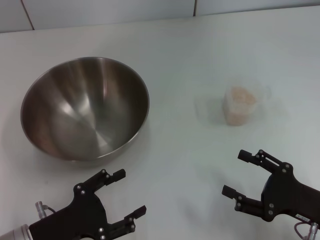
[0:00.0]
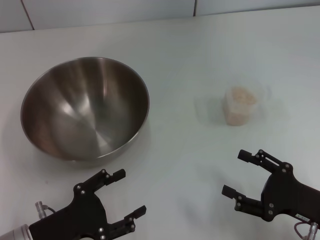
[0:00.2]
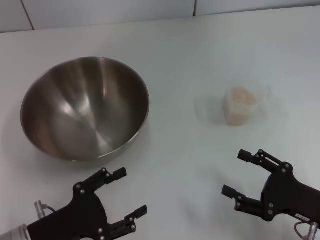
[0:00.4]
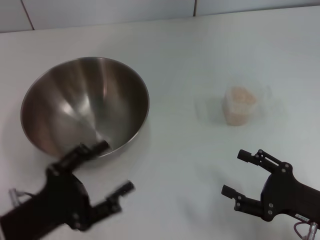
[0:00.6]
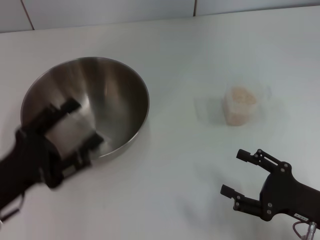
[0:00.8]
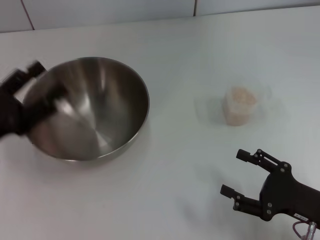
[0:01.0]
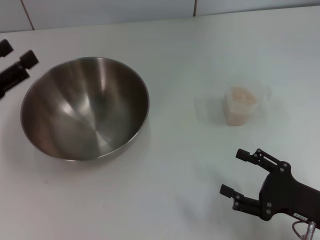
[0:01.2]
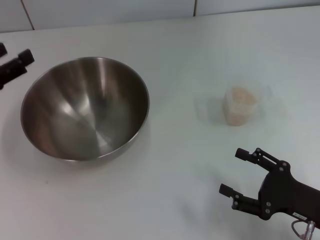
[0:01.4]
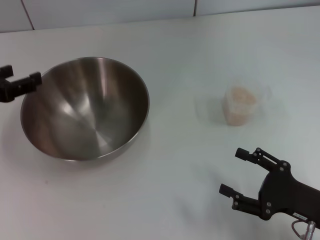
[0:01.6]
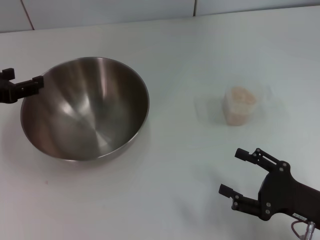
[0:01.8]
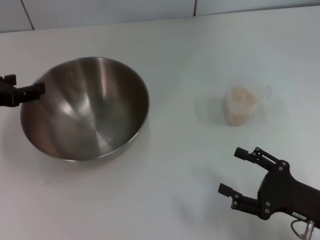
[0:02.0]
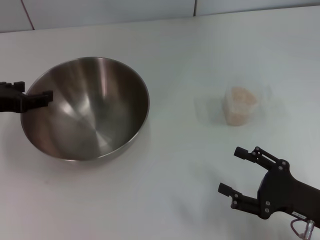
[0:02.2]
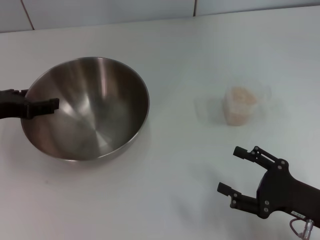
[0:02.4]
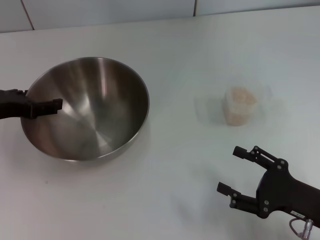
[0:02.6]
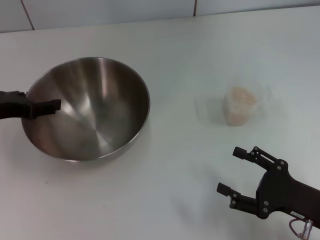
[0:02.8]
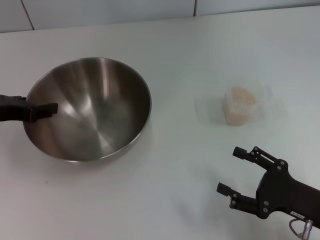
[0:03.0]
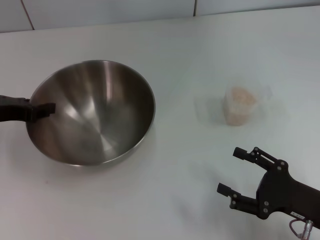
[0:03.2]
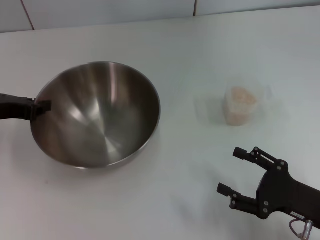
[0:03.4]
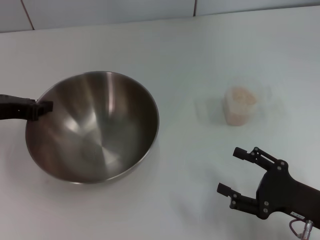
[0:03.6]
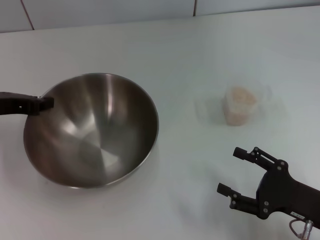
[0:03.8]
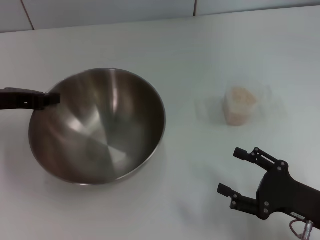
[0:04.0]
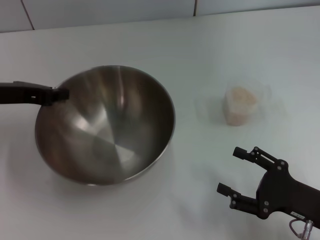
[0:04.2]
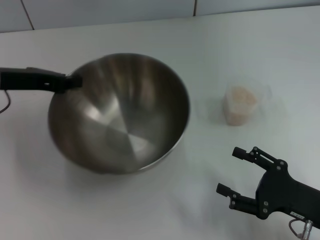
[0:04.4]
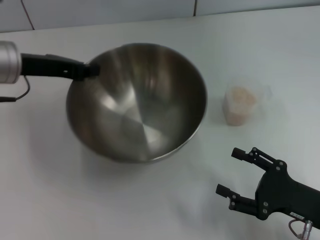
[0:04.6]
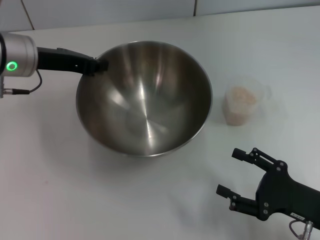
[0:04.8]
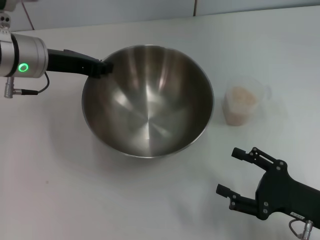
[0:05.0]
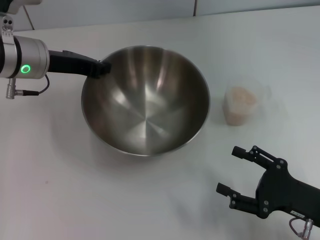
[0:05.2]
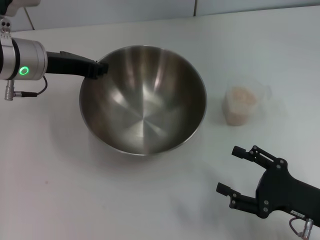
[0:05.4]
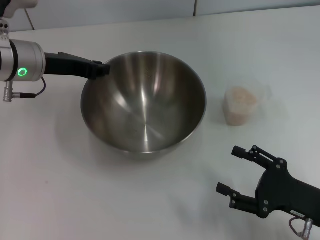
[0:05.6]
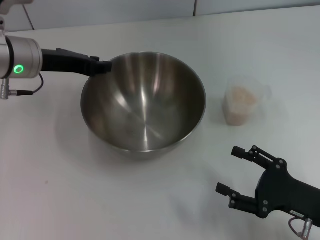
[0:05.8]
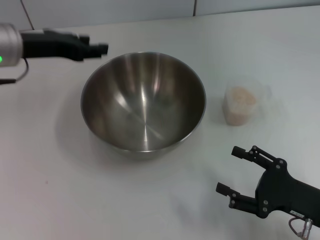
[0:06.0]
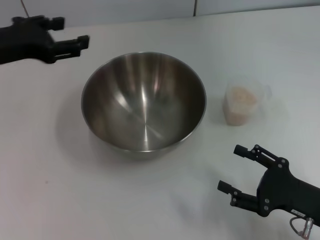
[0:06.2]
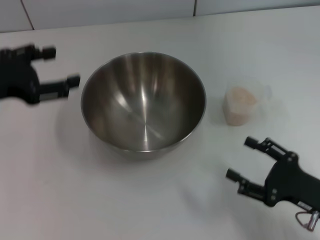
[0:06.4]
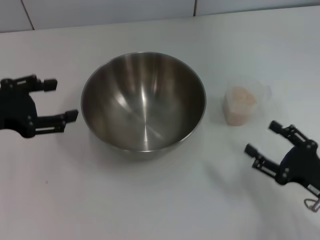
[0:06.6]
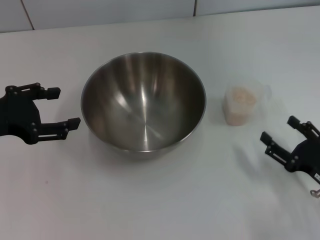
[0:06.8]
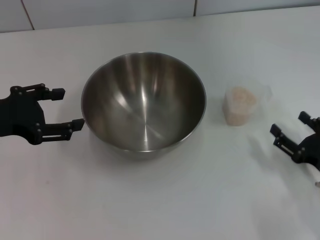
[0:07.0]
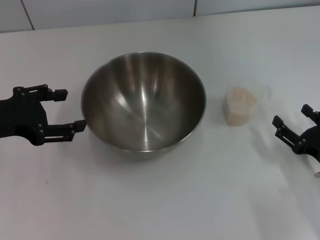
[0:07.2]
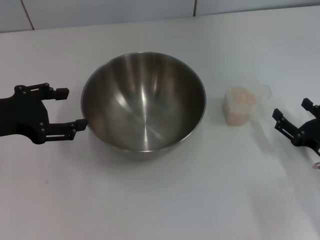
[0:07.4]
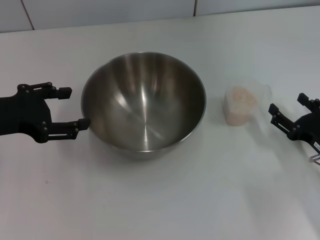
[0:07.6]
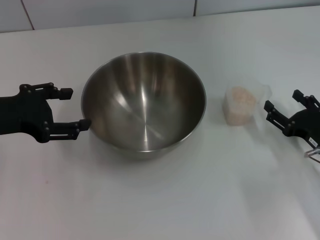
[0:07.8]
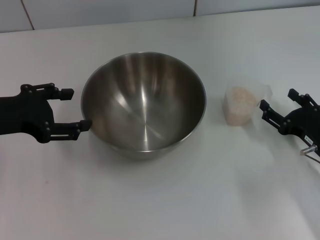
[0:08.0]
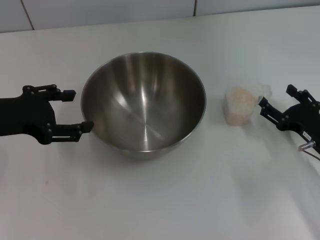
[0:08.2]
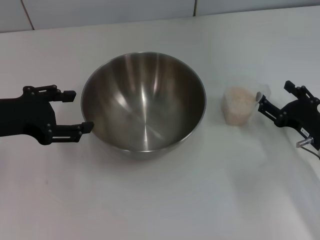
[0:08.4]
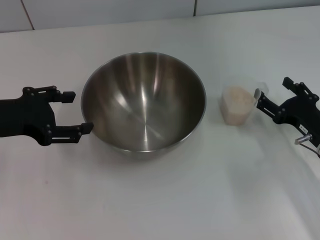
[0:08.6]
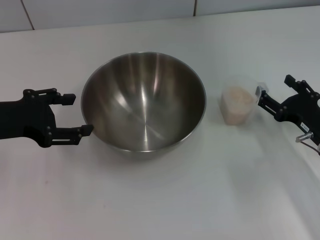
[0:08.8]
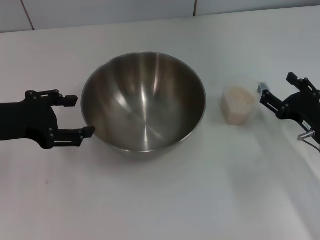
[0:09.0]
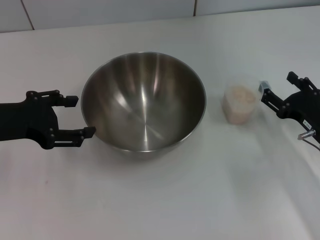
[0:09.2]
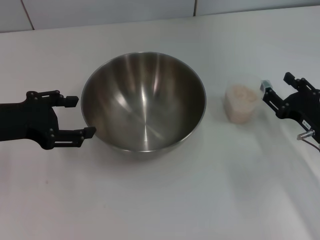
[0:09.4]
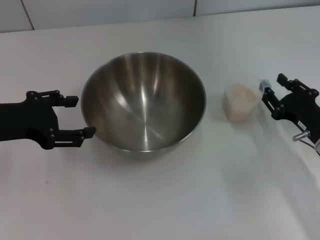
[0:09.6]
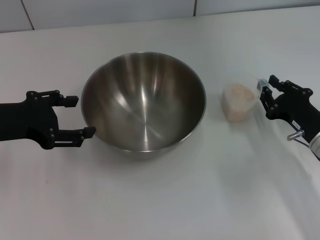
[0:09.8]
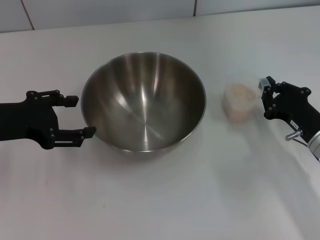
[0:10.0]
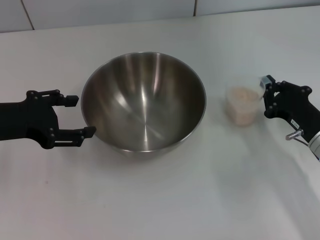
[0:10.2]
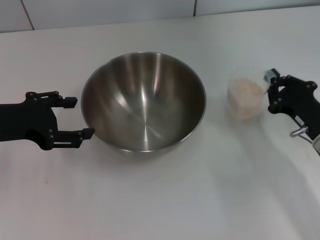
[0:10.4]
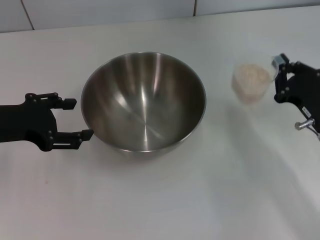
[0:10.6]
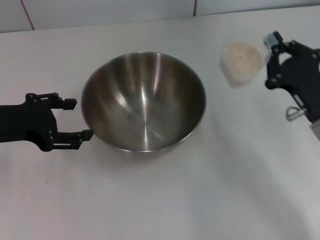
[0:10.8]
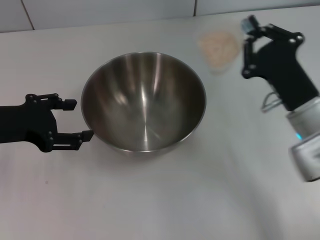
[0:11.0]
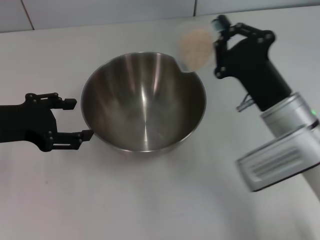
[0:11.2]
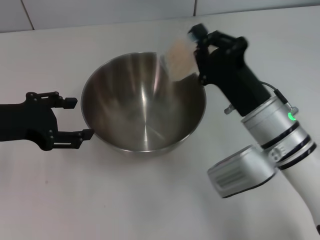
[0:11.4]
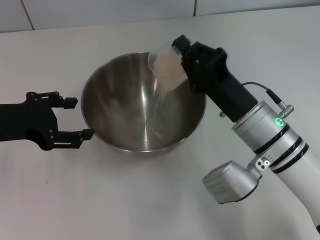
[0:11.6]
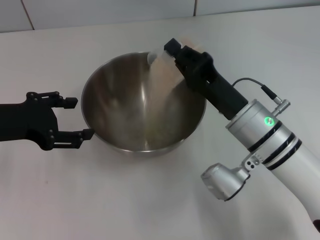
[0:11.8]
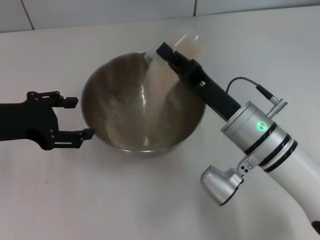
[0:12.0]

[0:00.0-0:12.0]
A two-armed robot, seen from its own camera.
Task of the whole recording: Place the bowl in the middle of the table with one hand and pour the rice from the grain cup into it with the other hand.
Step, 0:00.0 to 0:03.6: Pick up the bowl with the left gripper.
Step, 0:03.8 to 0:06.0: Place the bowl in the center of view with the left gripper.
Step, 0:06.2 to 0:10.8: Pick up the cup with rice in it with the right gripper.
0:00.0 to 0:01.6: The left gripper shifts roughly 20 cm upward, forward and to the left.
0:01.6 to 0:03.0: The grippers move only a little.
0:03.0 to 0:04.4: The left gripper moves approximately 5 cm, and closes up.
0:04.4 to 0:06.0: The left gripper opens.
0:06.0 to 0:07.6: The right gripper travels forward by roughly 5 cm; the left gripper travels backward and to the left by approximately 10 cm, and opens up.
0:07.6 to 0:09.0: The grippers make only small movements.
0:09.0 to 0:10.4: The right gripper closes its fingers.
0:10.4 to 0:12.0: The right gripper heads to the left, covering roughly 15 cm.

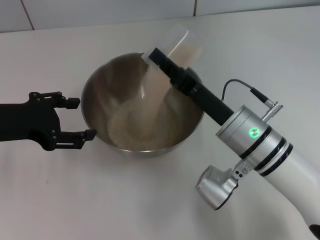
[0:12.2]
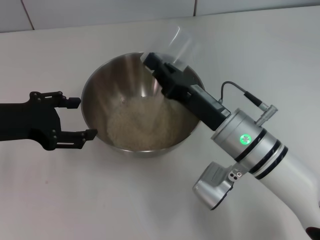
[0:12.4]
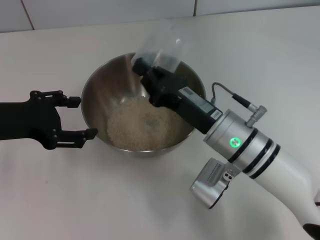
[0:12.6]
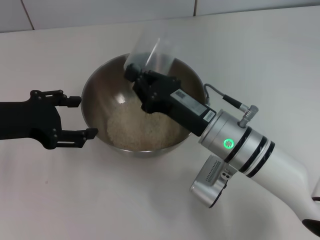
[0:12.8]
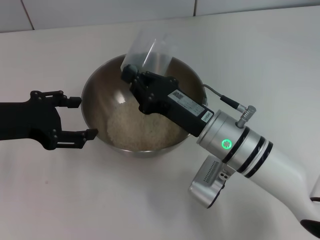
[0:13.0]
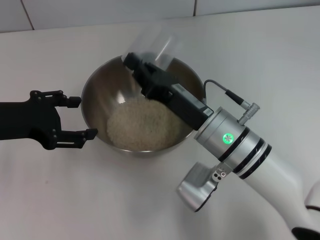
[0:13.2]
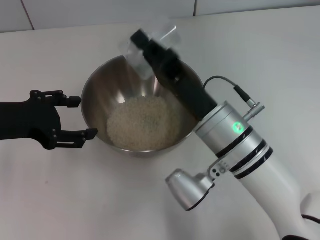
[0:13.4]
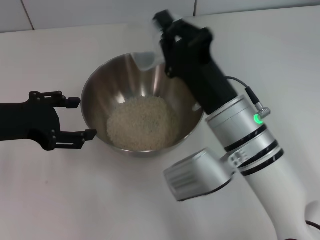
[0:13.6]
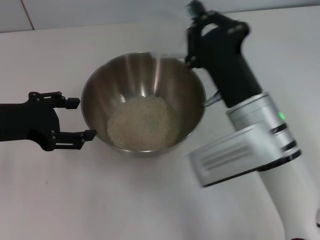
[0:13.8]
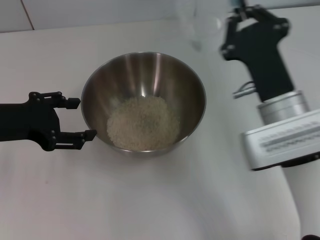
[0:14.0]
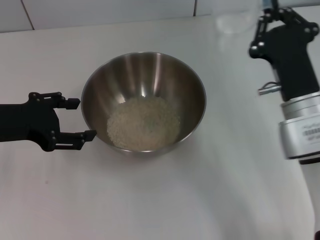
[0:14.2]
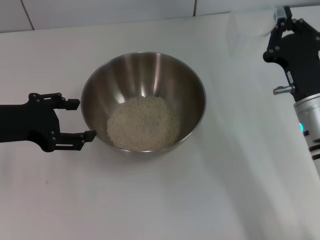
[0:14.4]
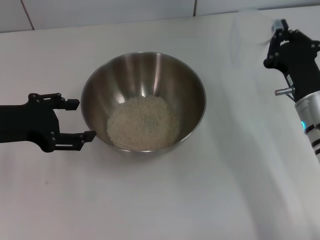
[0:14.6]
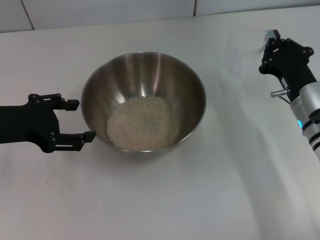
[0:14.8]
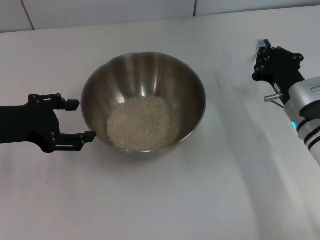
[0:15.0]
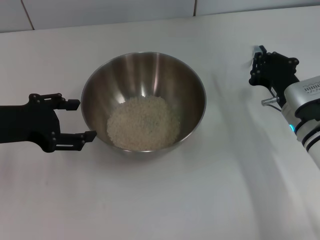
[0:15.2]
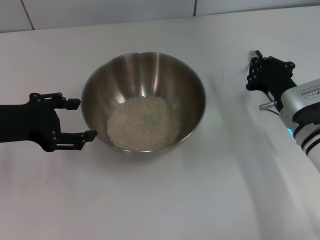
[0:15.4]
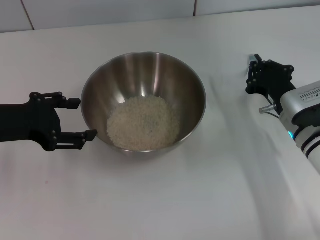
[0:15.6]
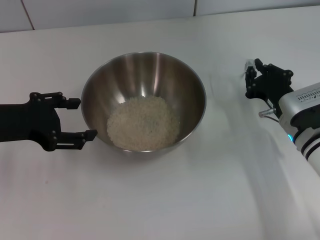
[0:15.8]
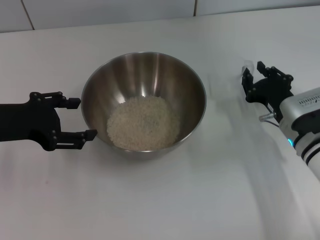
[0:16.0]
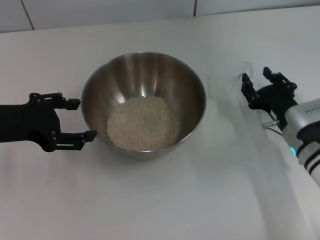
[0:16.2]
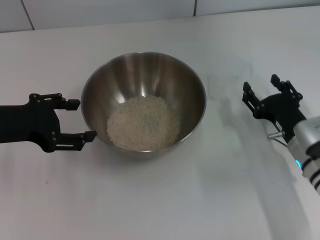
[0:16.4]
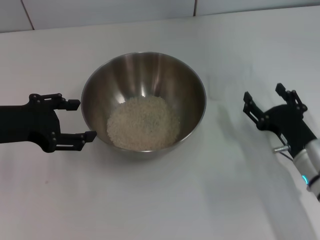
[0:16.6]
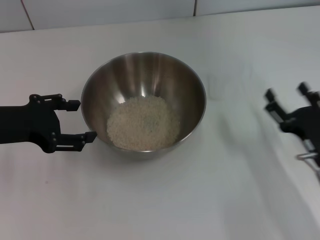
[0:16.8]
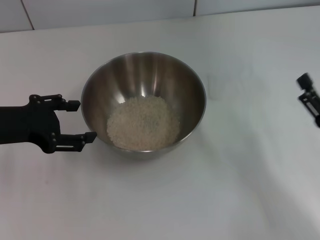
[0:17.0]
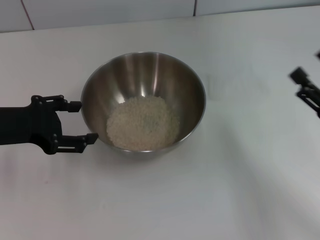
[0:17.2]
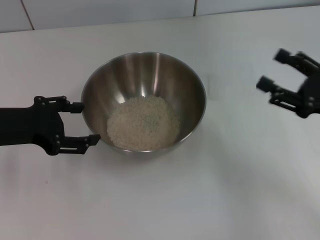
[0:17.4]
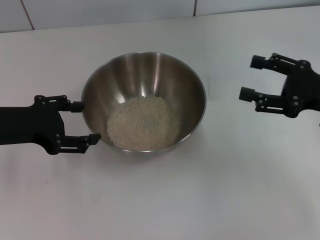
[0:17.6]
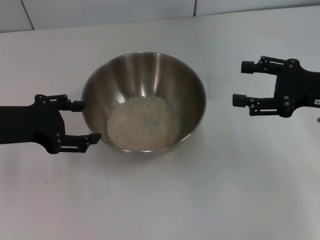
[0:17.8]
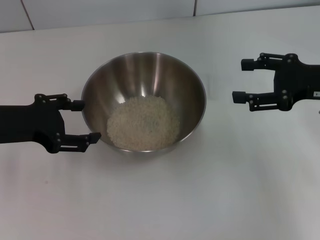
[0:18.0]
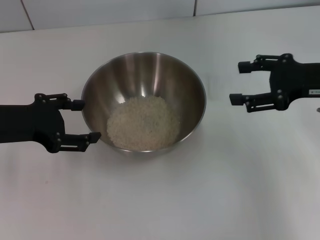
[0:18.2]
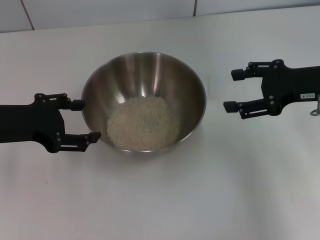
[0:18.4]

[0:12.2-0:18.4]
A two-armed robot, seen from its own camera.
Task of the whole recording: Place the bowl in the middle of the table with one hand and pour the rice from the grain cup into it with the other hand.
Step, 0:12.2 to 0:14.0: Pour the rice from the cup into the bowl with the right gripper.
Step, 0:14.4 to 0:16.4: Place the cup on the table with the right gripper.
0:13.8 to 0:15.4: The right gripper shifts approximately 15 cm to the right and downward.
0:15.4 to 0:16.8: The right gripper travels backward by some 10 cm, and opens up.
0:16.8 to 0:18.4: The right gripper moves upward and forward, some 20 cm.

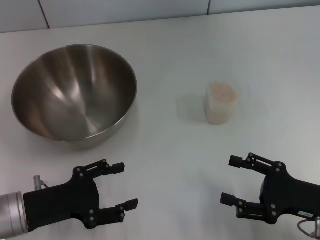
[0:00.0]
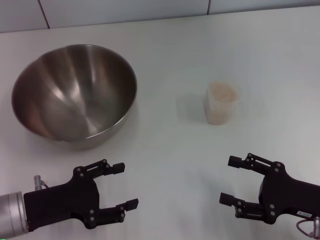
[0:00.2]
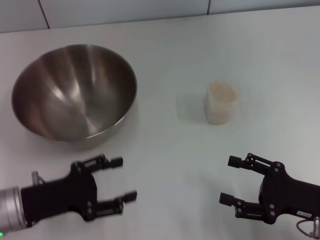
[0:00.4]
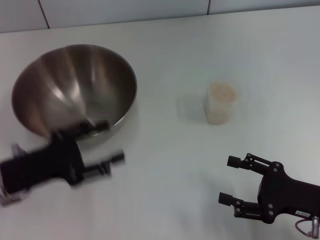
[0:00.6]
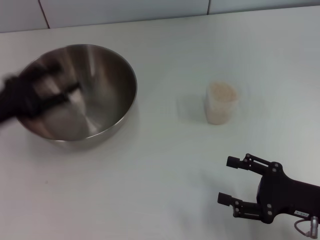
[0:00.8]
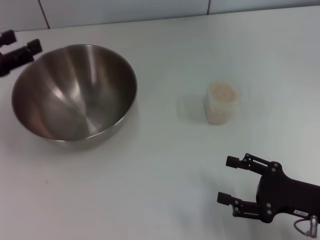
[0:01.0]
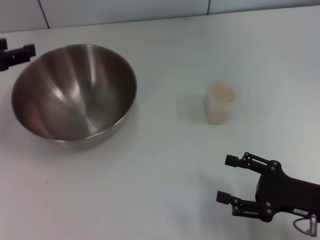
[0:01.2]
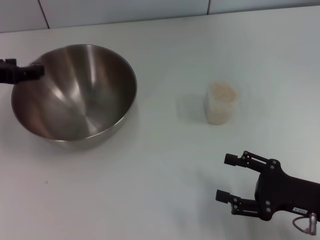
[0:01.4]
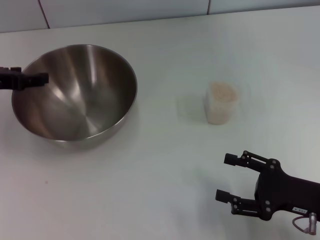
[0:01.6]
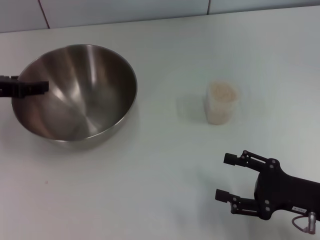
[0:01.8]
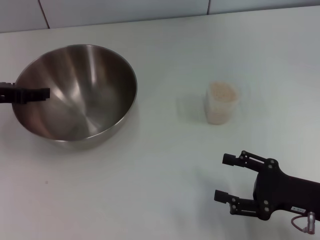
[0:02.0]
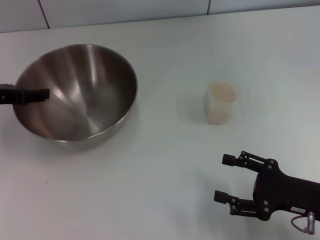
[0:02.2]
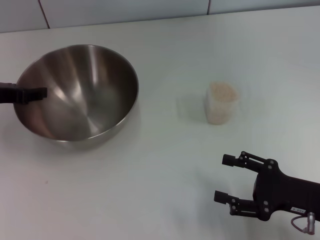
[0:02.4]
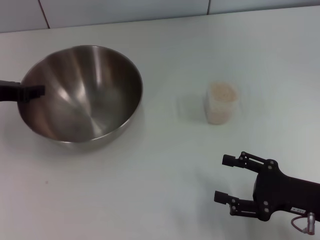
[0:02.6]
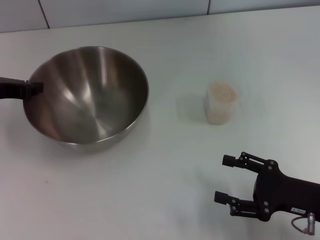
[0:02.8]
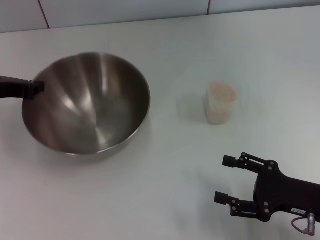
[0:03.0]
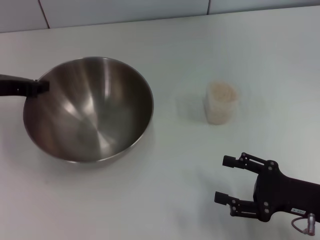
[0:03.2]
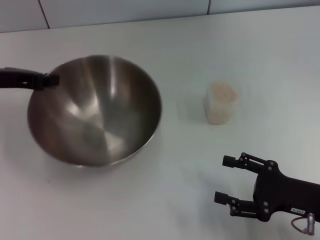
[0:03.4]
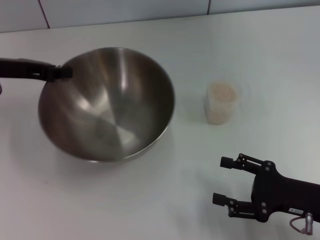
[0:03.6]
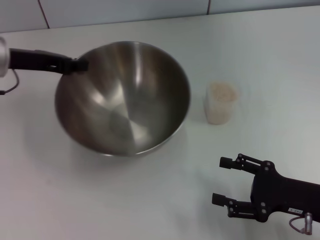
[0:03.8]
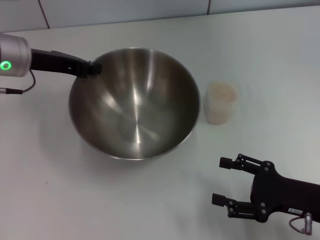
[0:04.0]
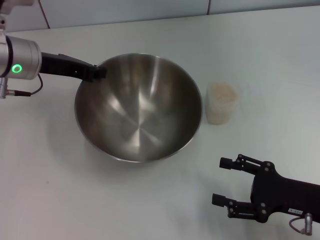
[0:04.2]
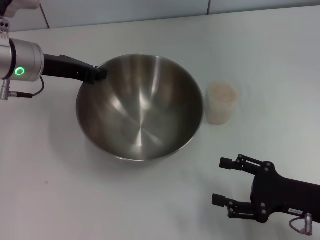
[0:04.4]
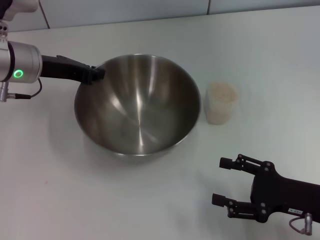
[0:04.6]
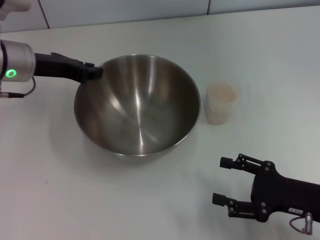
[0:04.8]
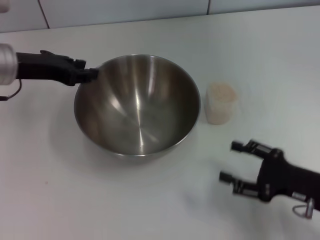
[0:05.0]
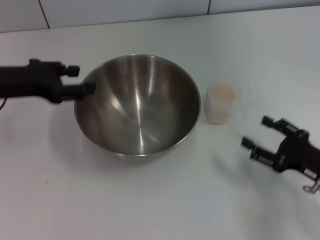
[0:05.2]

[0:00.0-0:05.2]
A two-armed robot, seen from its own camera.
Task of the whole recording: Place the bowl in the middle of the table with one hand and pour the rice from the grain cup into it with the other hand.
Step, 0:00.0 to 0:03.6: Pick up the bowl with the left gripper.
Step, 0:03.8 to 0:05.0: Place the bowl in the center of view with the left gripper.
0:00.0 to 0:01.8: The left gripper is displaced forward and upward by approximately 15 cm.
0:01.8 to 0:03.4: The left gripper closes.
0:03.4 to 0:05.2: The left gripper moves some 10 cm to the right and comes back, and opens its fingers.
